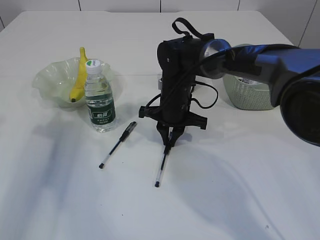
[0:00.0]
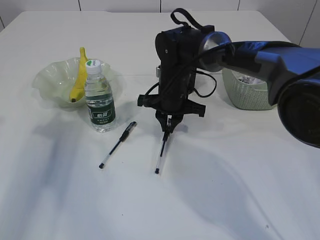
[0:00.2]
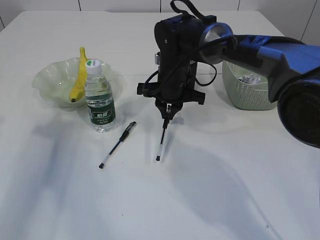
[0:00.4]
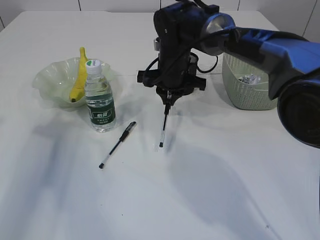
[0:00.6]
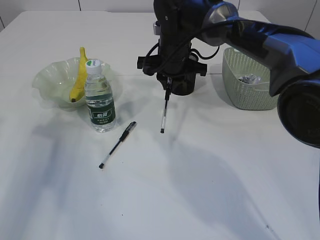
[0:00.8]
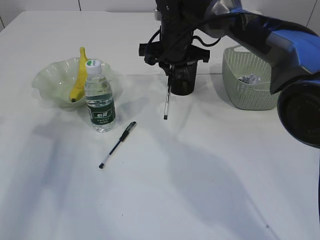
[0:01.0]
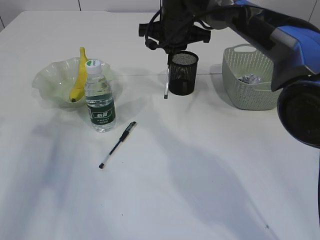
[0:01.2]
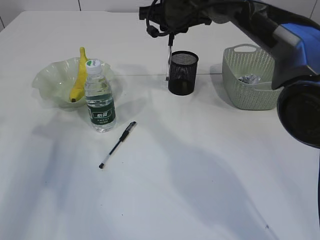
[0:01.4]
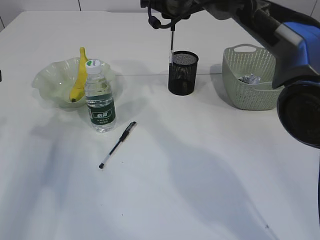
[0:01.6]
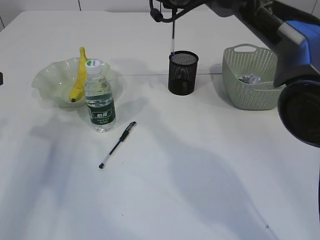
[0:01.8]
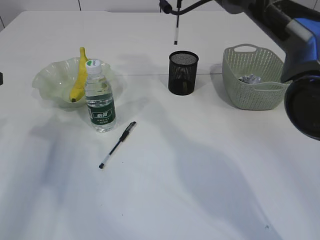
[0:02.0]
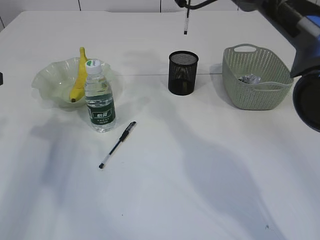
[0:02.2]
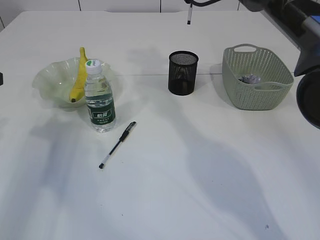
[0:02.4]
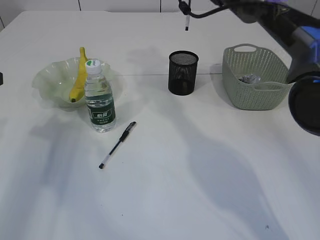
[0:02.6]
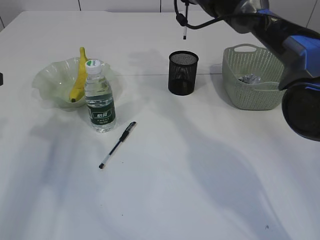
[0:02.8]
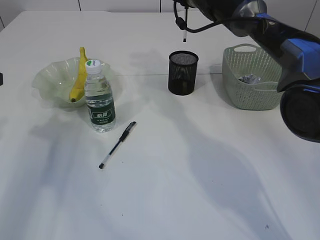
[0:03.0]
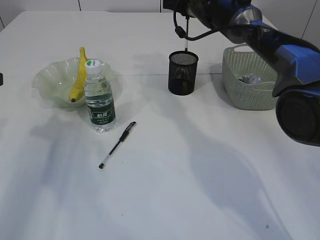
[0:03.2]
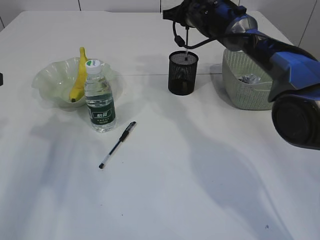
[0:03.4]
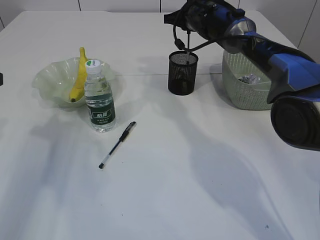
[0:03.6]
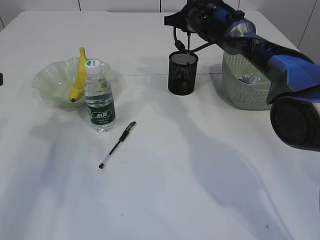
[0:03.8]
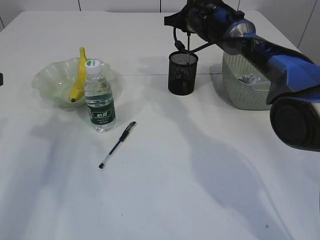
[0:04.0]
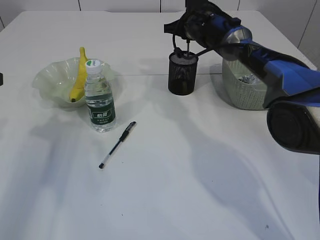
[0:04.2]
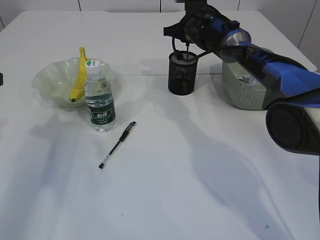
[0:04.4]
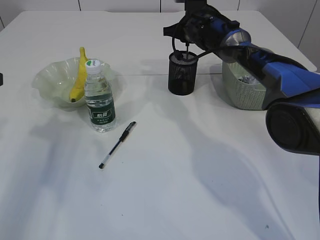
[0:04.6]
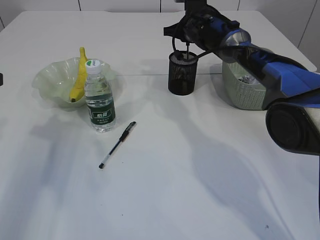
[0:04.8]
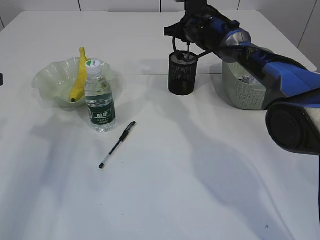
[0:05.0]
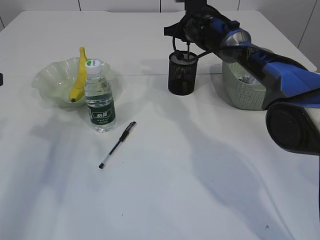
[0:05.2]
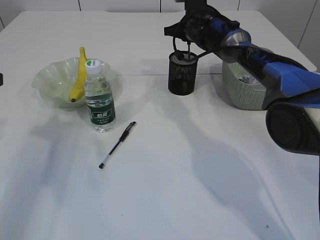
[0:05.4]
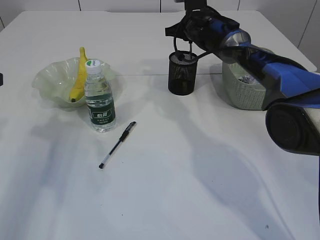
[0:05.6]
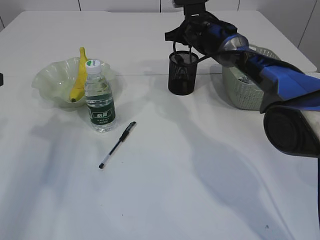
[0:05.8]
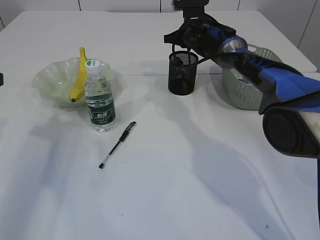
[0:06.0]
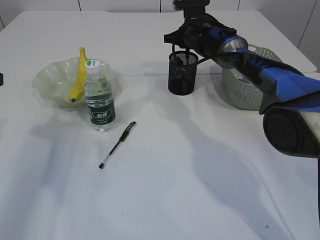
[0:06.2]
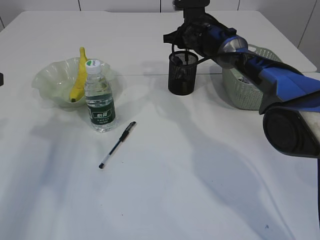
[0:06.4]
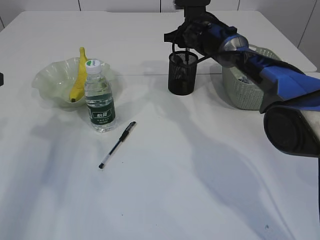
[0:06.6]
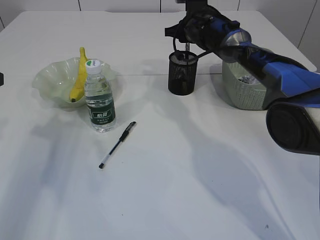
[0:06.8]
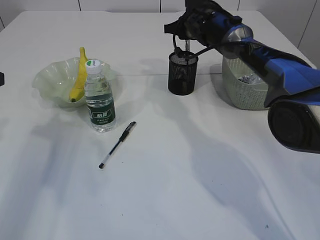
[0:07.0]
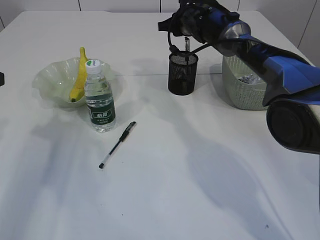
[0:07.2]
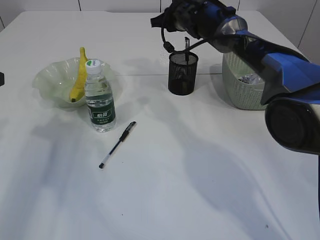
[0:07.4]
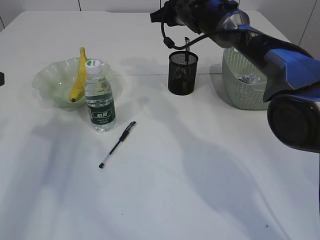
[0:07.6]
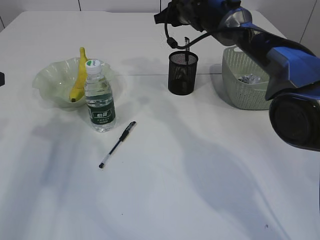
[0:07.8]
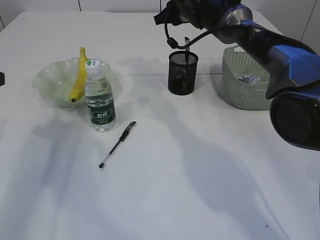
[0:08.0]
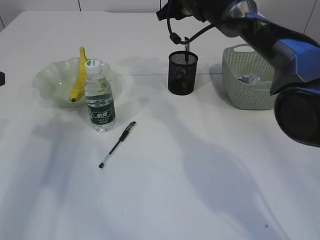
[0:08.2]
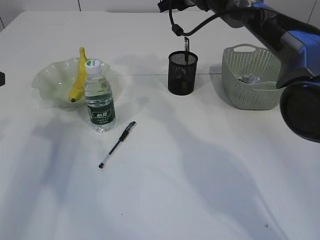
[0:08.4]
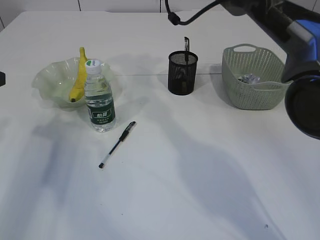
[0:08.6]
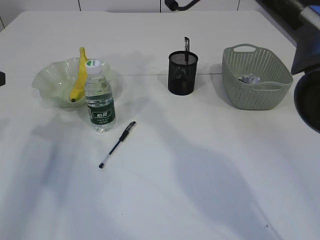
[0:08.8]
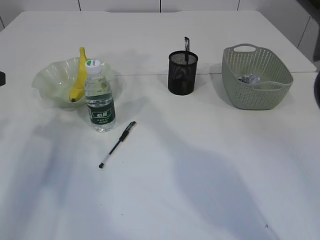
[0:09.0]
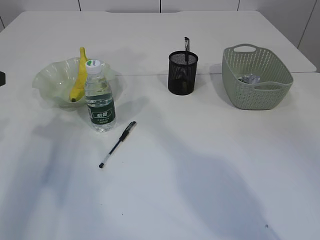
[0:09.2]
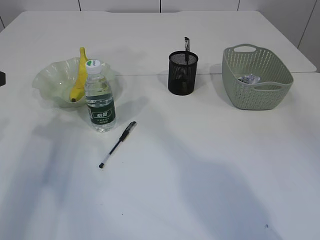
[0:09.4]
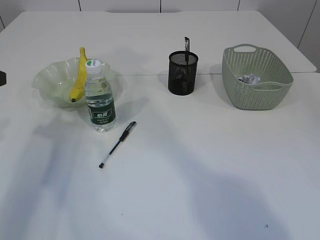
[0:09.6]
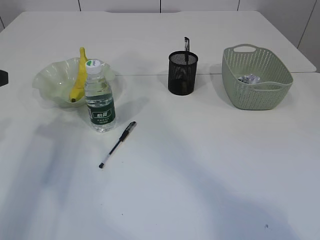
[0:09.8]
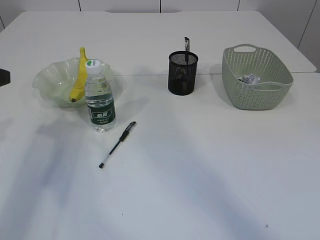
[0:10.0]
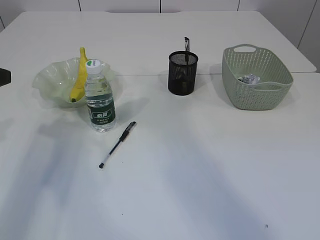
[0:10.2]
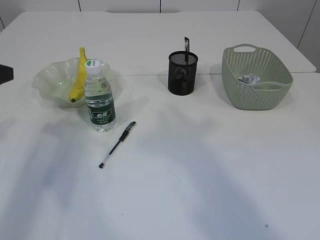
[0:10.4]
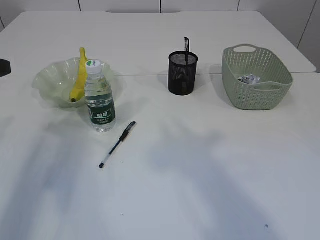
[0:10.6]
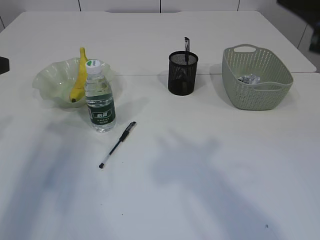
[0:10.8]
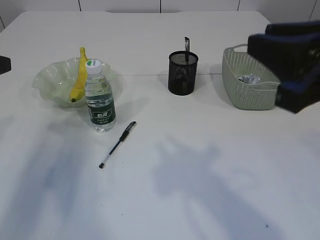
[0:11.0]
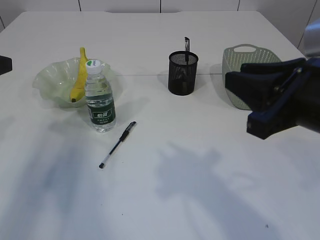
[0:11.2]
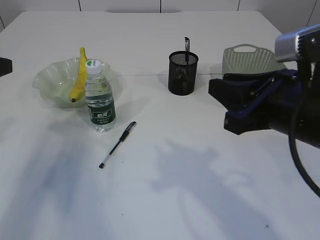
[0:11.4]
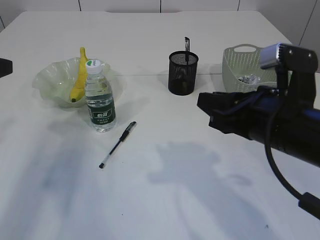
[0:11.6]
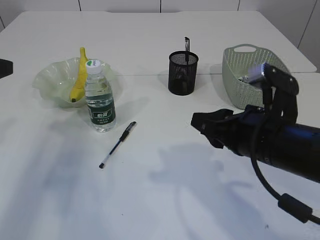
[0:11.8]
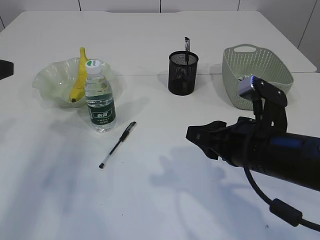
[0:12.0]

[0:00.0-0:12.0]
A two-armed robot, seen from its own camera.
Step, 0:00.8 to 0:07.2: Place the pen into the pen holder.
0:00.0 to 0:01.6: The right gripper heads upward, covering roughly 20 cm.
0:01.6 to 0:03.0: The right gripper shifts some 10 cm forward and to the right.
0:03.0 to 0:04.4: The right gripper is displaced downward by about 10 cm.
0:04.4 to 0:06.0: The grippers stay close to where they were, moving slightly.
0:06.0 to 0:07.6: The right gripper travels upward by roughly 5 cm.
0:07.6 to 0:09.0: The right gripper goes about 15 cm upward and backward.
0:09.0 to 0:10.4: The right gripper goes some 35 cm backward and to the right.
0:10.4 to 0:12.0: The right gripper shifts about 30 cm downward.

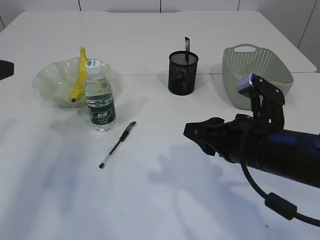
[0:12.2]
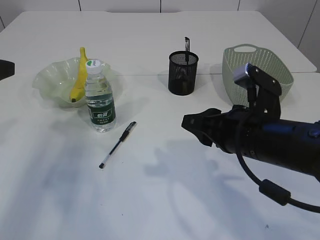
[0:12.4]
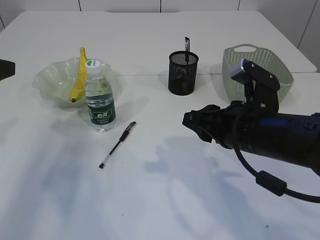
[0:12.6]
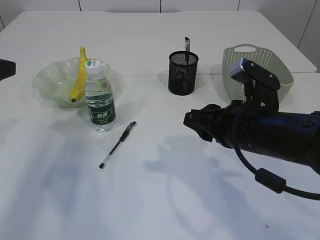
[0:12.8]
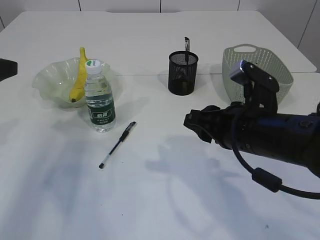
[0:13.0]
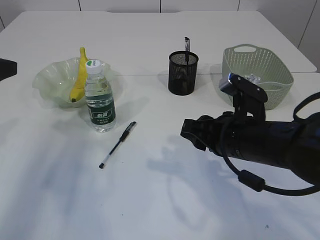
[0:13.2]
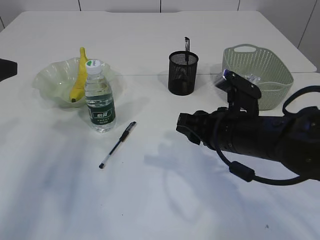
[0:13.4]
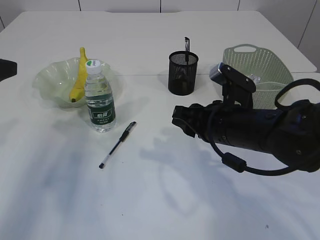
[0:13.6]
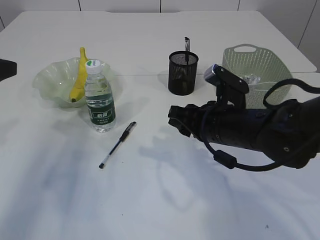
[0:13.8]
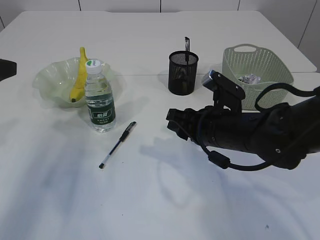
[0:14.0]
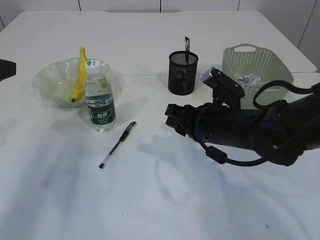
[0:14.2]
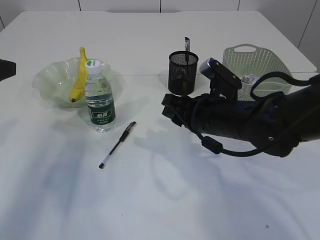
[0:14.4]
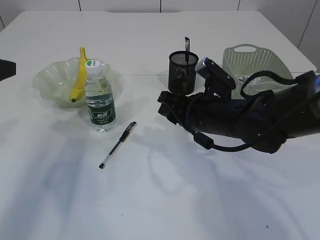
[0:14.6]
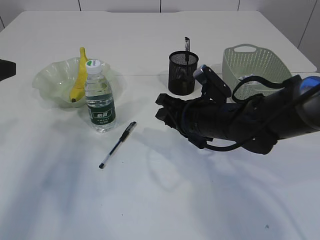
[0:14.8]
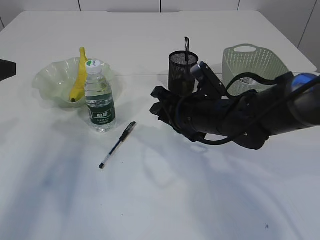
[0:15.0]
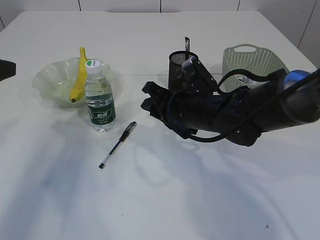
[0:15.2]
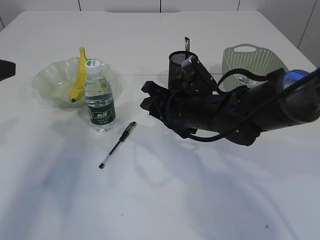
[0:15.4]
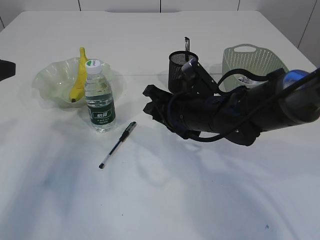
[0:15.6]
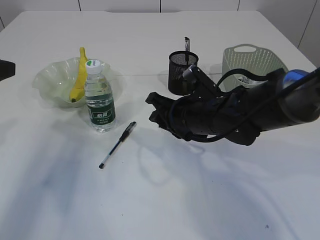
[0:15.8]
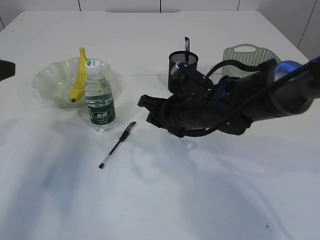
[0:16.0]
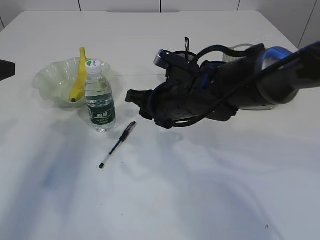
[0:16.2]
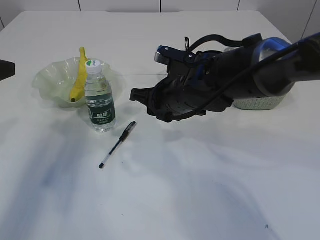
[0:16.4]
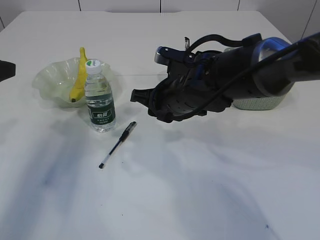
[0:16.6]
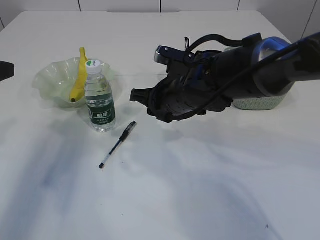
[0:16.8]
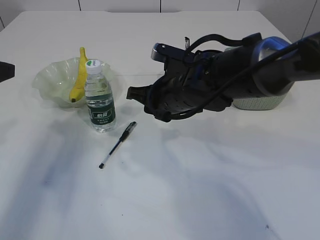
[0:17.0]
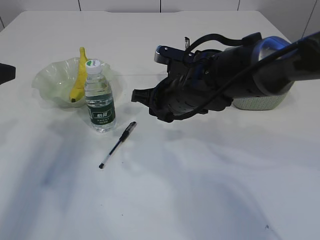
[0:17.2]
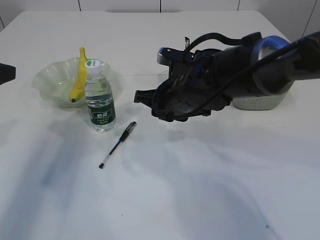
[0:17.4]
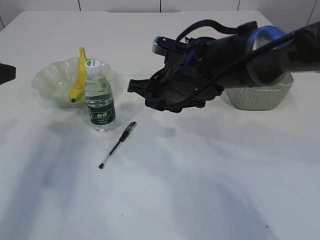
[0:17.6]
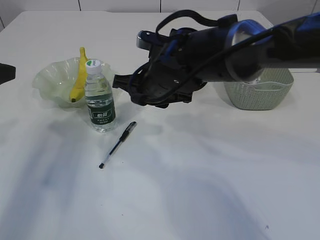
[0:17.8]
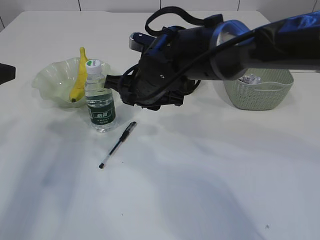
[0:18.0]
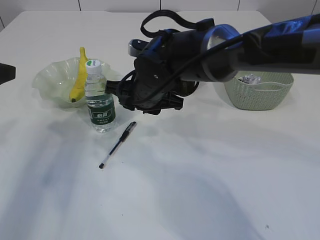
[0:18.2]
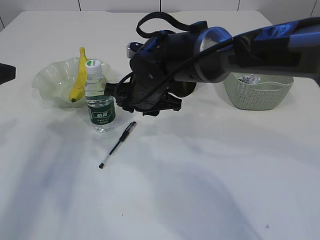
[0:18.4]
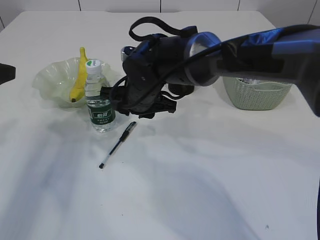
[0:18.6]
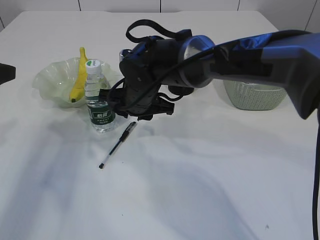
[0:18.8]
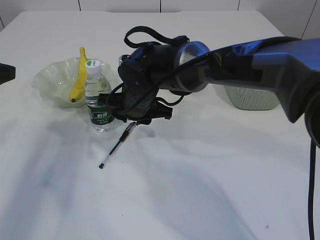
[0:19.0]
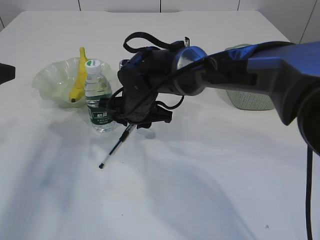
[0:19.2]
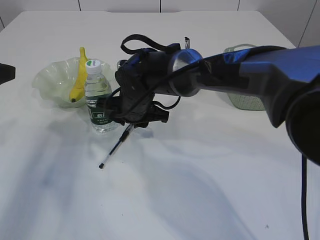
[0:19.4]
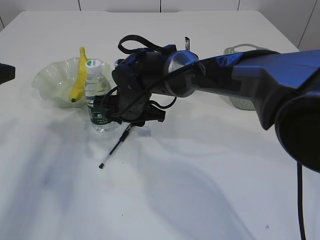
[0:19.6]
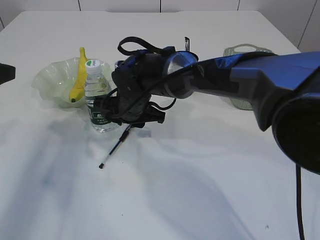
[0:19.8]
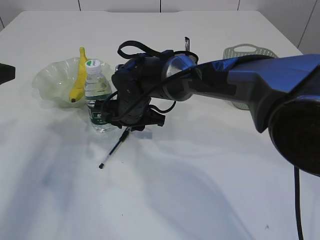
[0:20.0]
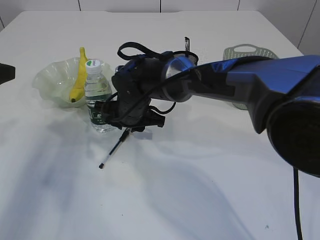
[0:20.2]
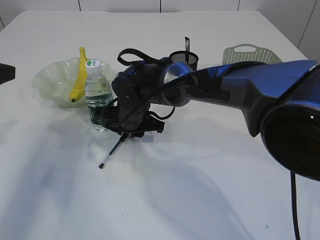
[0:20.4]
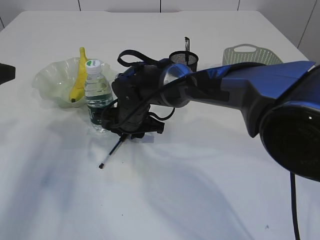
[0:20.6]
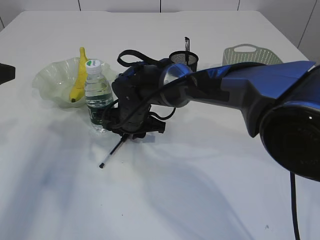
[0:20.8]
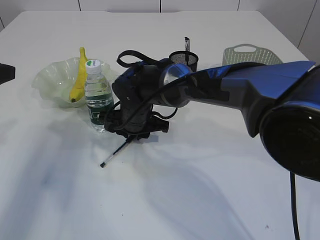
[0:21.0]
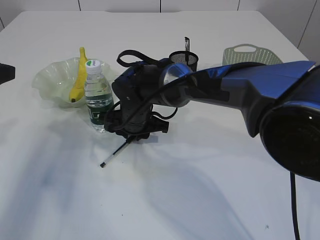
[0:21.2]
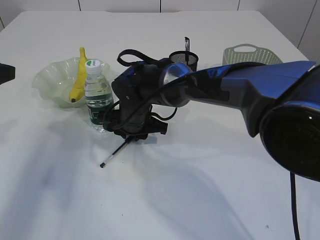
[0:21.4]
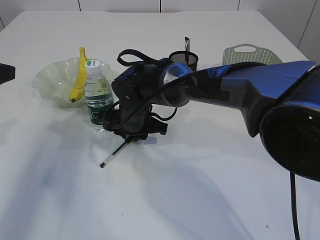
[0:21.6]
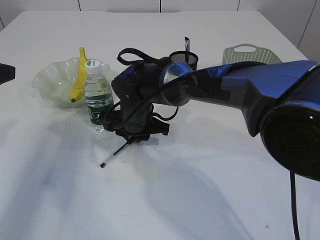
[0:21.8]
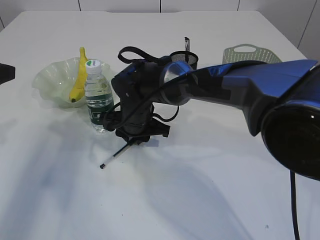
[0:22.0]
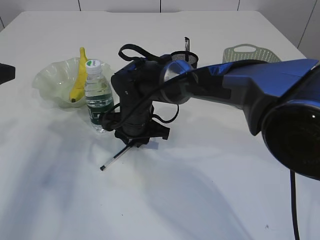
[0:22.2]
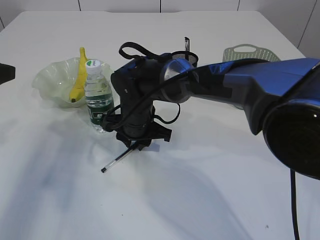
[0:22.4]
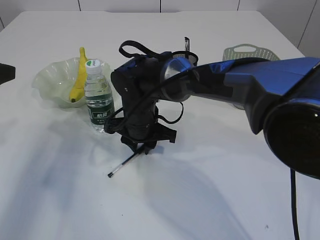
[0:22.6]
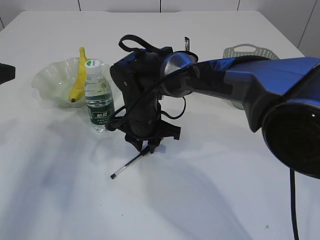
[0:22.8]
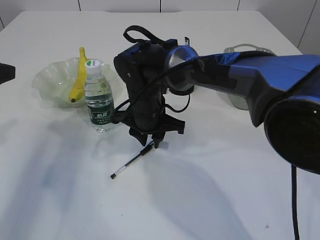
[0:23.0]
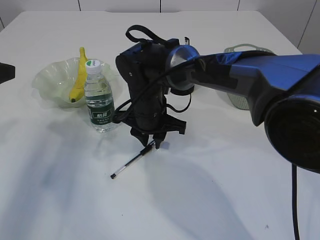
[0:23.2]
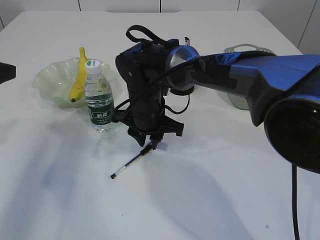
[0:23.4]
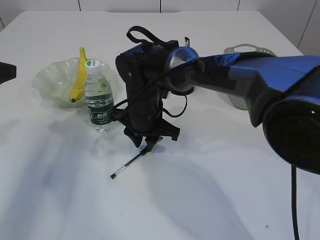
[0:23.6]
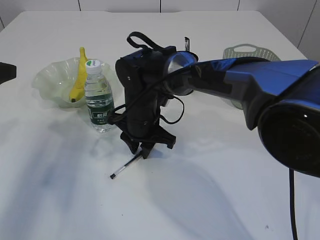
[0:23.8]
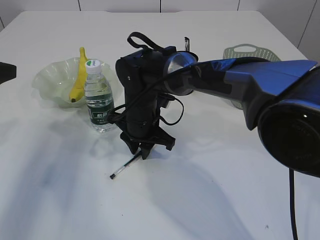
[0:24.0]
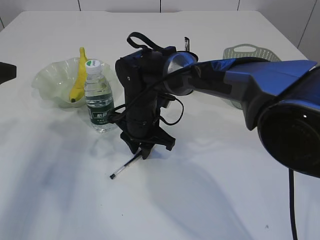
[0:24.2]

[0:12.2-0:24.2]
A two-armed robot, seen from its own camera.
0:12.2 to 0:13.8: The right gripper moves forward, roughly 5 cm.
0:13.8 to 0:15.2: The right gripper ends up about 5 cm from where it was.
0:16.6 to 0:18.2: The right gripper ends up approximately 5 cm from where it was.
0:18.2 to 0:19.8: The right gripper ends up some 5 cm from where it was.
0:19.8 to 0:22.6: The grippers stay close to where they were, moving slightly.
0:22.6 to 0:24.2: There are only small adjustments of the grippers.
